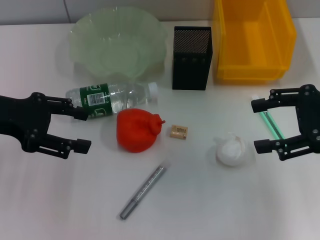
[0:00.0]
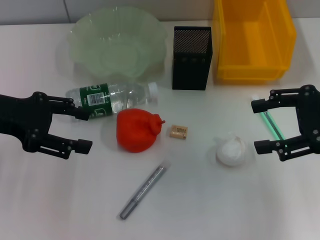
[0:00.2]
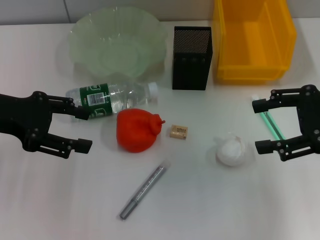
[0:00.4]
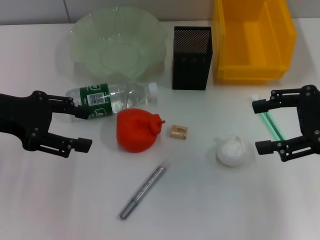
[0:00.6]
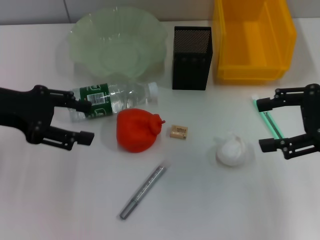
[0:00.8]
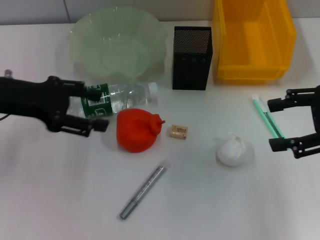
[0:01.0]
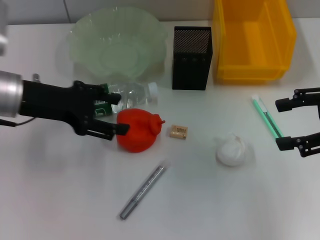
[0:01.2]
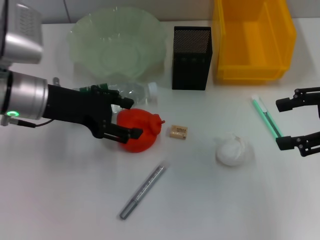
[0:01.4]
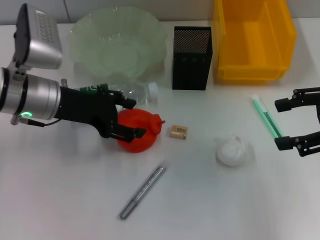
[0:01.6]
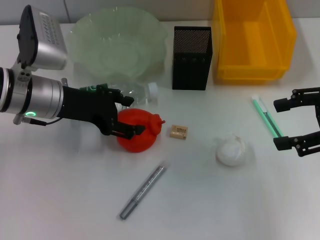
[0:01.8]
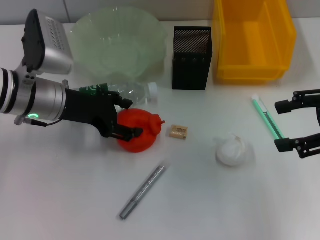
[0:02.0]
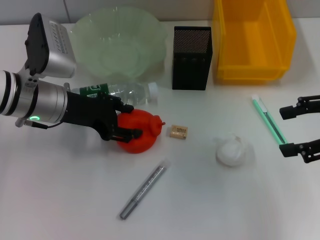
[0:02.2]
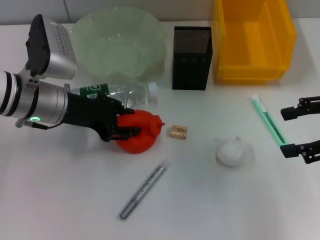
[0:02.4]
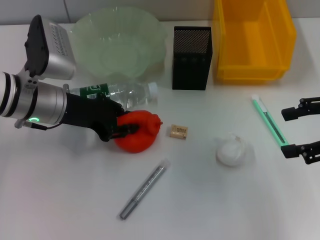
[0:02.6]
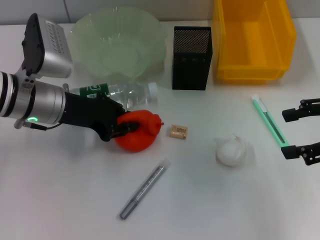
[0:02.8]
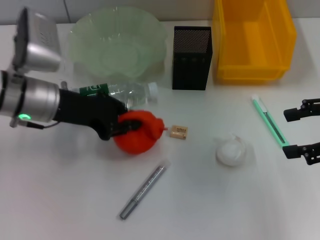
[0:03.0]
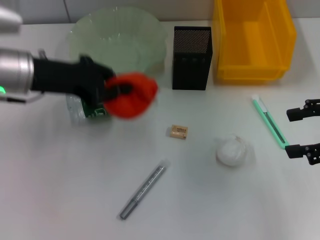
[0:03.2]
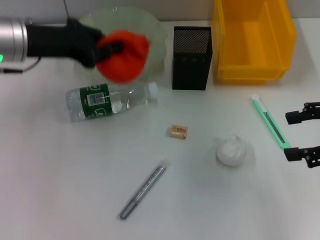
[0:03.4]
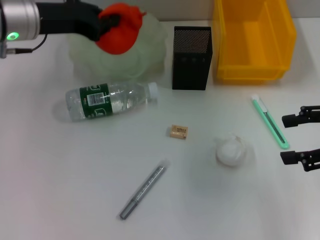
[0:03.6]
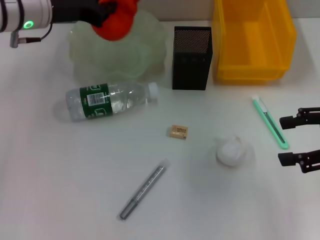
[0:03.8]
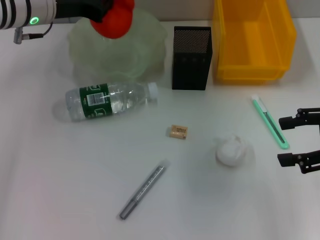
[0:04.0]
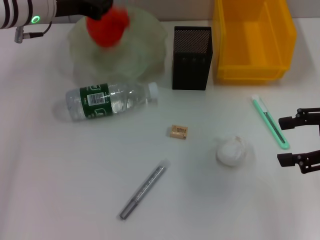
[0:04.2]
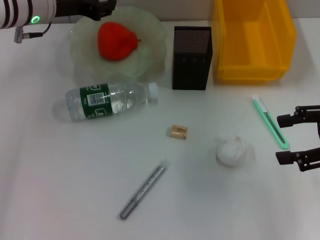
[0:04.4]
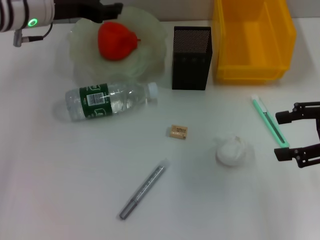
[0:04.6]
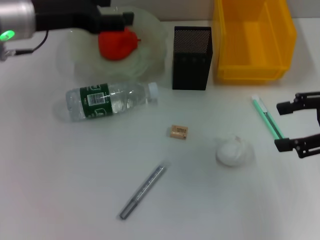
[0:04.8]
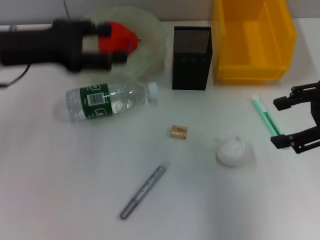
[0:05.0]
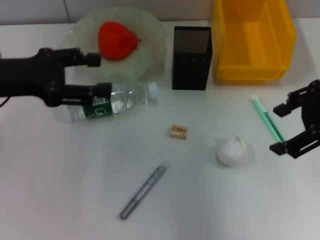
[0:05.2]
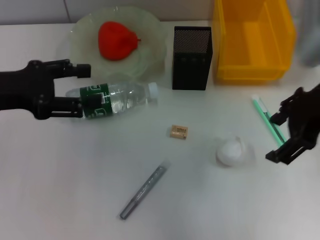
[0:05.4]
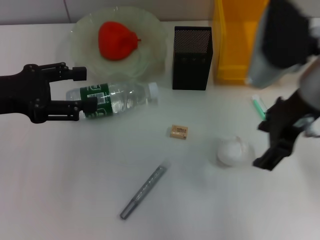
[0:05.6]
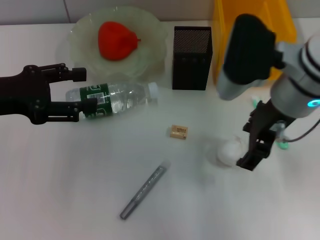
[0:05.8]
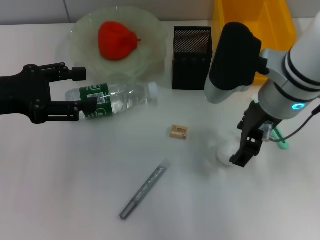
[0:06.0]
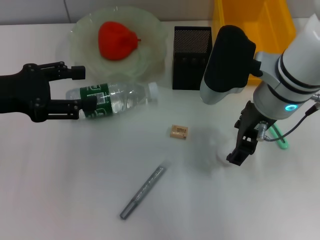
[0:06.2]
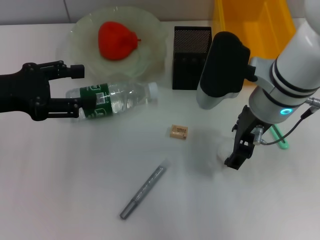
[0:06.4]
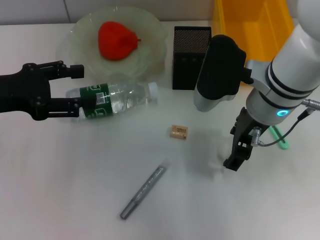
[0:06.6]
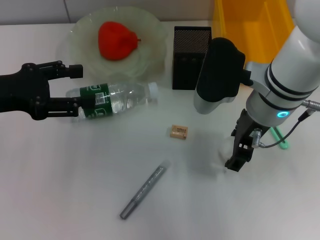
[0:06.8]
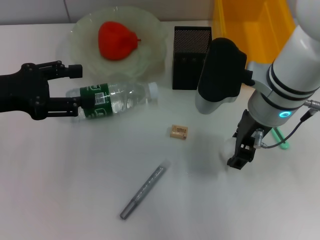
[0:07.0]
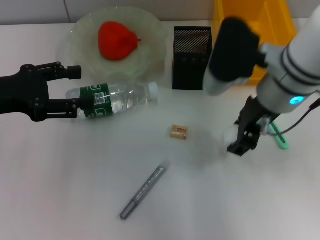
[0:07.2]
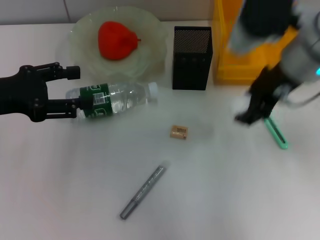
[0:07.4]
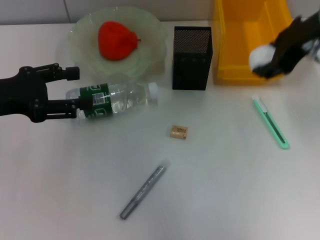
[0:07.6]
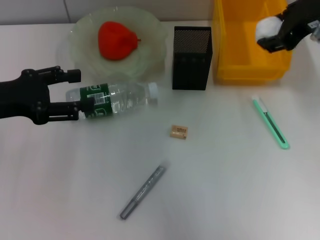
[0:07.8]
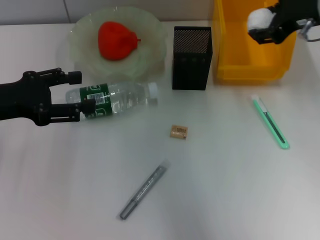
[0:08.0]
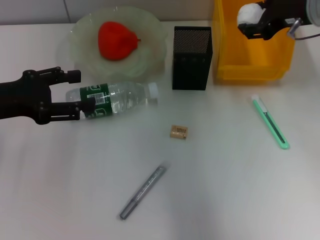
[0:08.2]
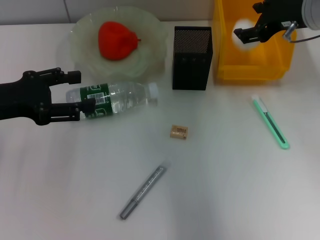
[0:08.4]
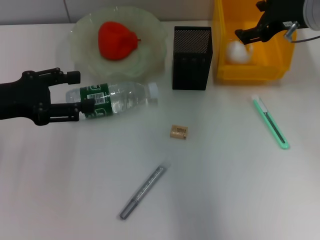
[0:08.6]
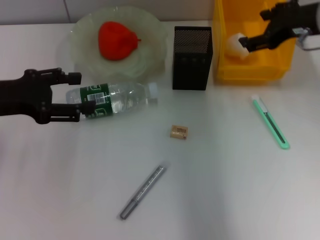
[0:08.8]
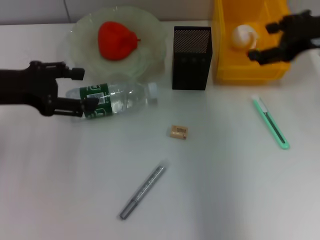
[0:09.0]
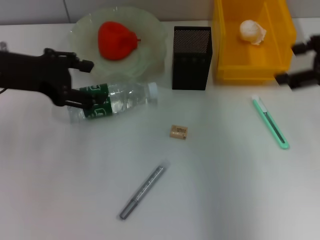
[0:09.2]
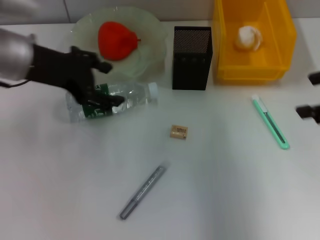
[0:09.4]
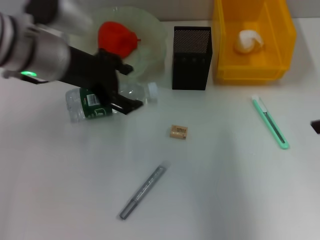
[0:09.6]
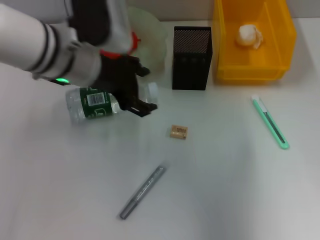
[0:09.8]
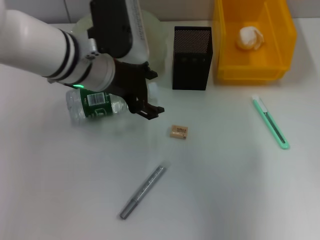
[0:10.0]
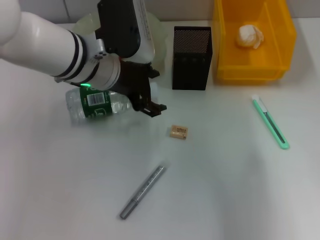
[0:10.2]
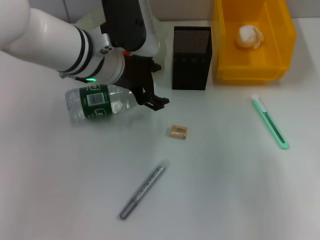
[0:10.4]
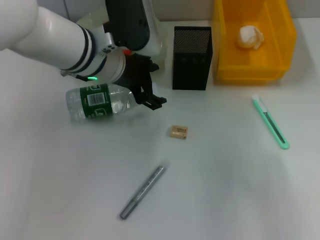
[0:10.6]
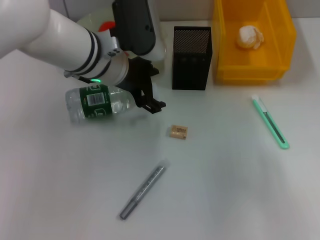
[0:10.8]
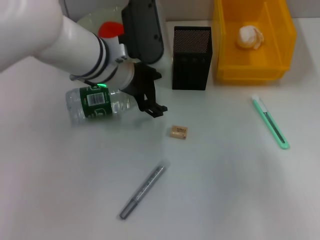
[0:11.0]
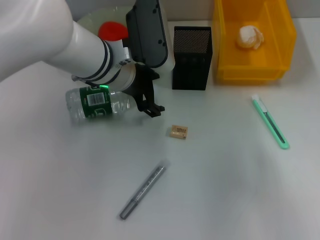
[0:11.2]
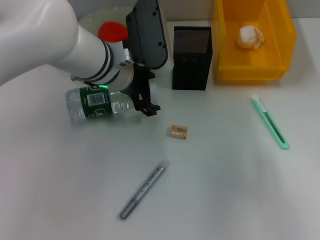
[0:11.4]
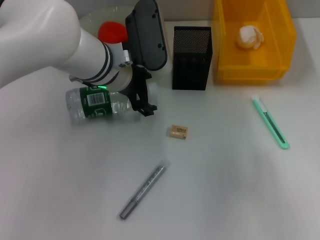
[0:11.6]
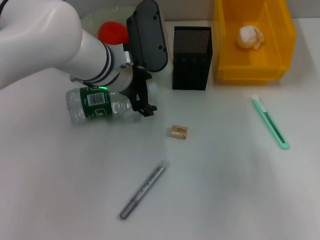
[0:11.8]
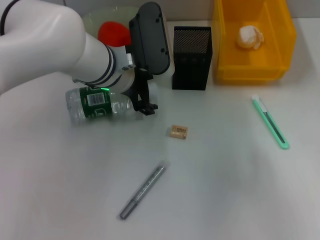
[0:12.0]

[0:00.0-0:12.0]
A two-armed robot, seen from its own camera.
Step, 0:00.0 to 0:02.6: Grab the orange with the left hand.
Step, 0:02.8 to 0:04.4: Place the orange into the fruit bowl with the left hand.
Step, 0:04.6 to 0:07.0: Grab the paper ball with the right hand.
Step, 0:07.2 to 0:08.6: Place the paper ball into the trash can with the right hand.
0:00.0 to 0:01.6: The left gripper heads to the right, covering approximately 10 cm.
0:01.6 to 0:03.0: The left gripper closes up.
0:03.0 to 0:04.4: The left gripper is displaced forward and upward by some 10 cm.
0:04.4 to 0:06.0: The left gripper heads backward and to the left, covering roughly 15 cm, and opens; the right gripper is displaced to the left by about 20 cm.
0:06.0 to 0:07.6: The right gripper shifts roughly 10 cm upward and to the right, and closes.
0:07.6 to 0:09.0: The right gripper goes about 10 cm to the right and downward, and opens.
0:09.0 to 0:10.4: The left gripper heads to the right, covering some 20 cm. The right gripper moves backward and to the right, approximately 15 cm.
0:10.4 to 0:12.0: The grippers make only small movements.

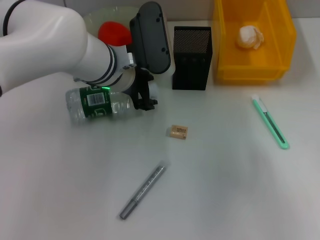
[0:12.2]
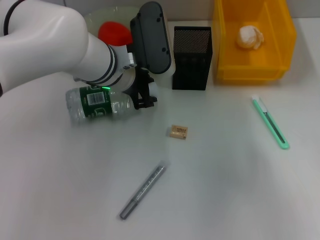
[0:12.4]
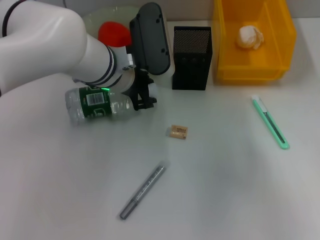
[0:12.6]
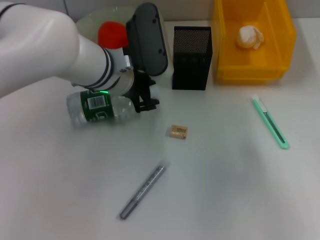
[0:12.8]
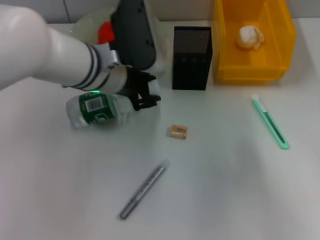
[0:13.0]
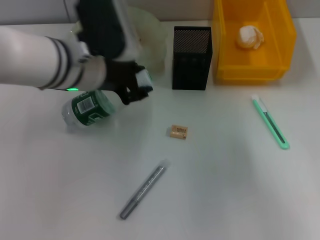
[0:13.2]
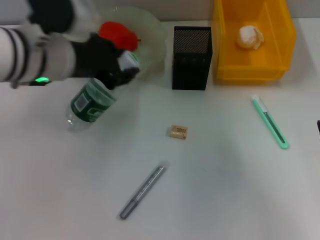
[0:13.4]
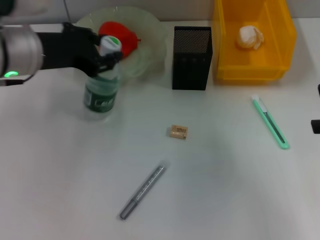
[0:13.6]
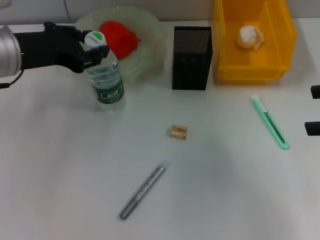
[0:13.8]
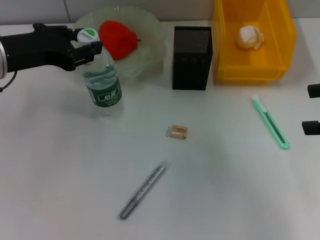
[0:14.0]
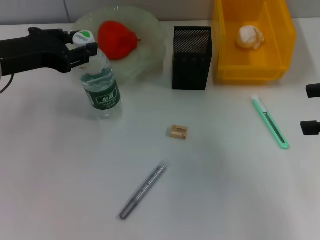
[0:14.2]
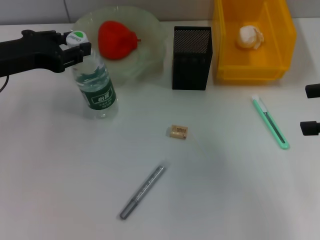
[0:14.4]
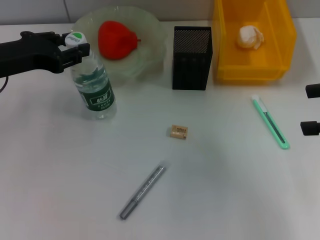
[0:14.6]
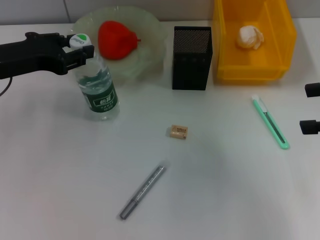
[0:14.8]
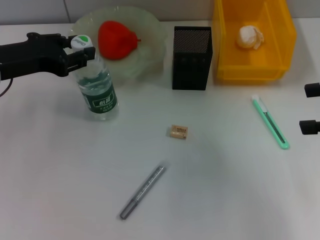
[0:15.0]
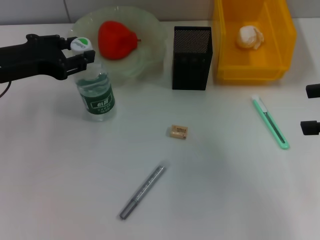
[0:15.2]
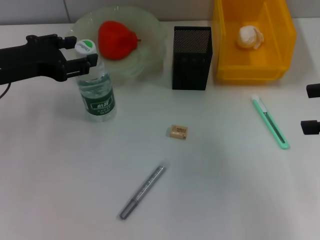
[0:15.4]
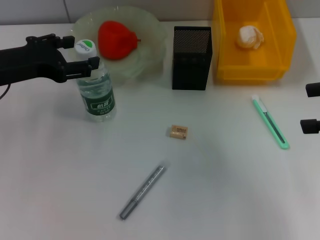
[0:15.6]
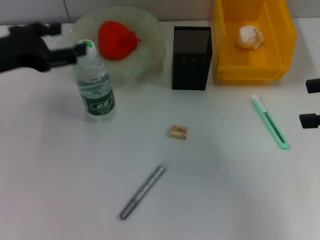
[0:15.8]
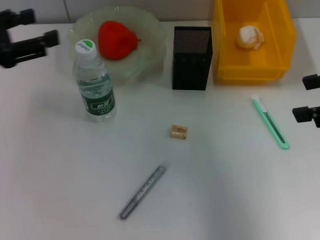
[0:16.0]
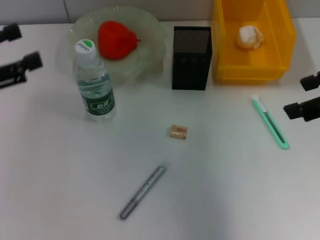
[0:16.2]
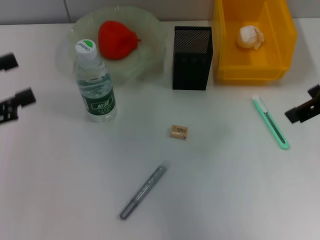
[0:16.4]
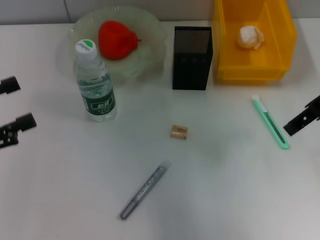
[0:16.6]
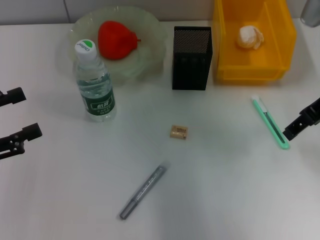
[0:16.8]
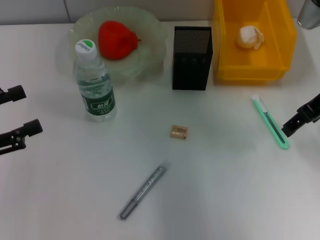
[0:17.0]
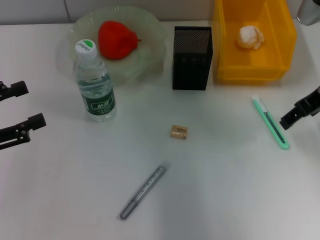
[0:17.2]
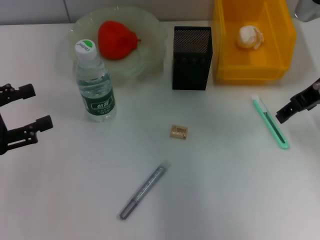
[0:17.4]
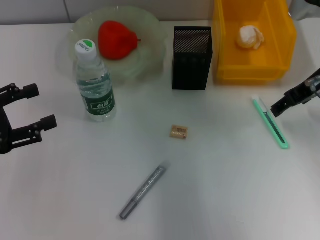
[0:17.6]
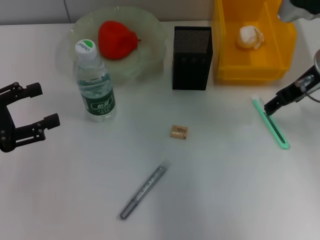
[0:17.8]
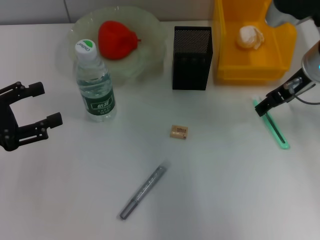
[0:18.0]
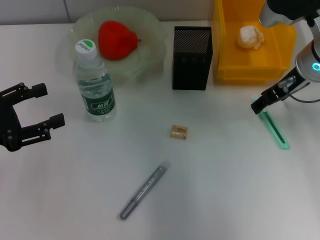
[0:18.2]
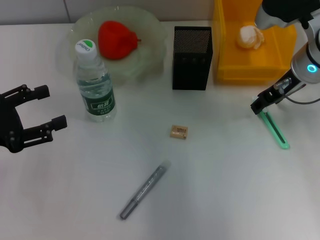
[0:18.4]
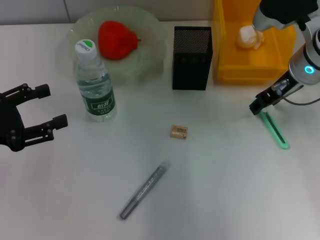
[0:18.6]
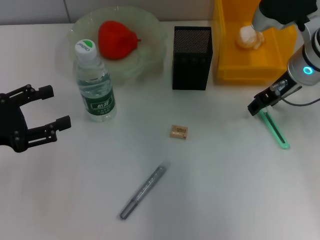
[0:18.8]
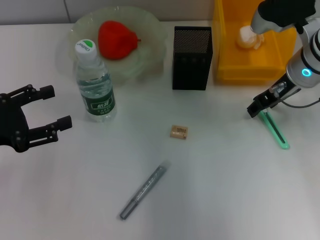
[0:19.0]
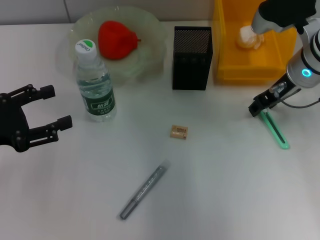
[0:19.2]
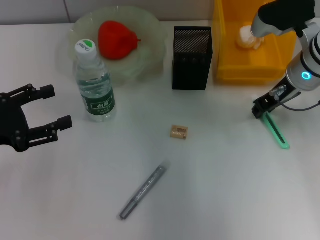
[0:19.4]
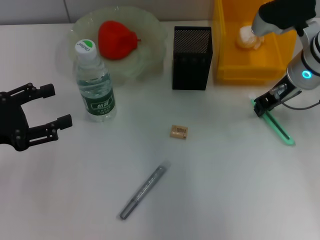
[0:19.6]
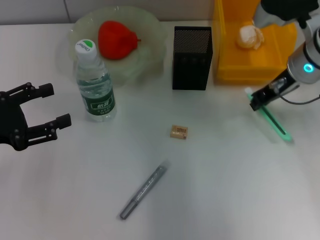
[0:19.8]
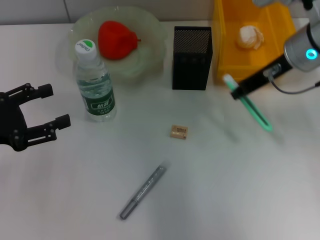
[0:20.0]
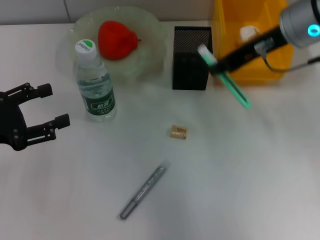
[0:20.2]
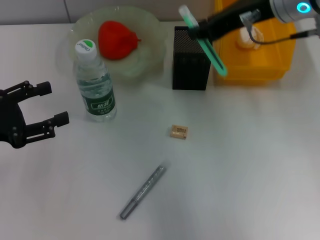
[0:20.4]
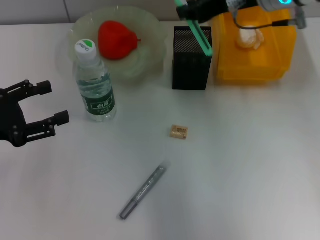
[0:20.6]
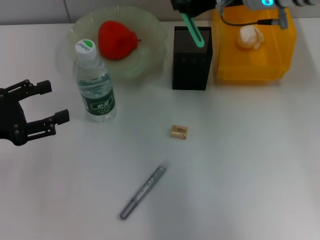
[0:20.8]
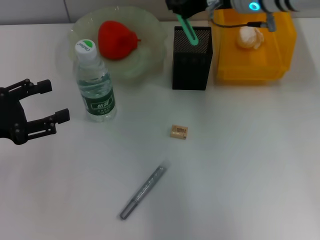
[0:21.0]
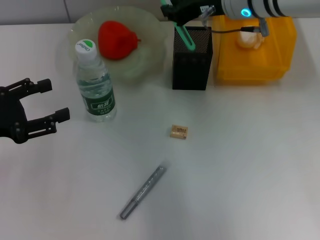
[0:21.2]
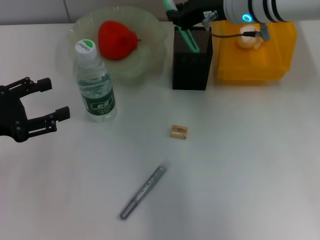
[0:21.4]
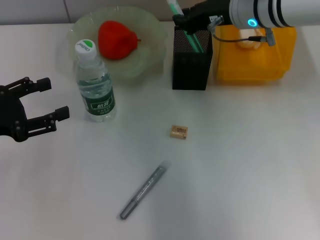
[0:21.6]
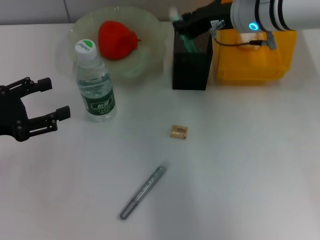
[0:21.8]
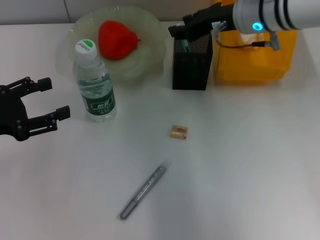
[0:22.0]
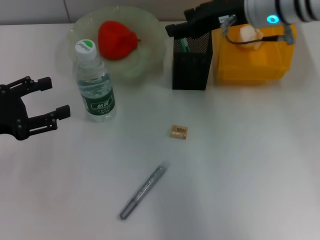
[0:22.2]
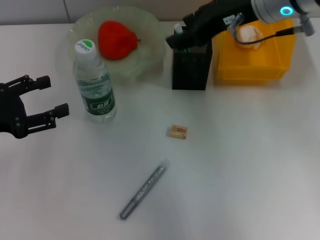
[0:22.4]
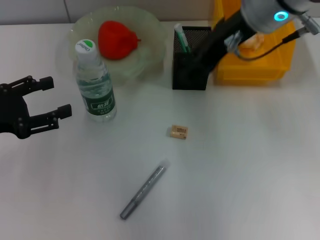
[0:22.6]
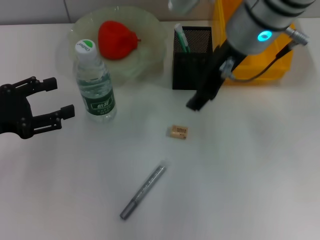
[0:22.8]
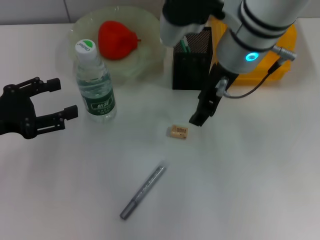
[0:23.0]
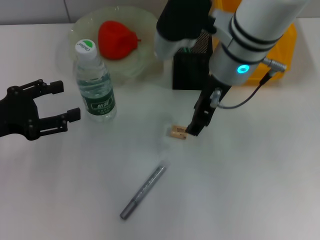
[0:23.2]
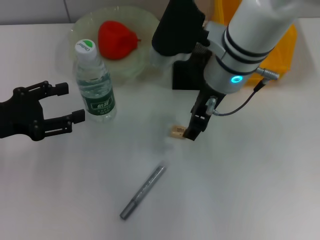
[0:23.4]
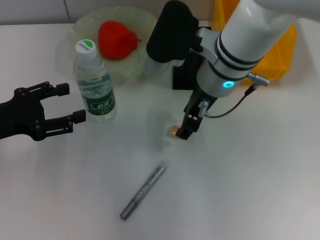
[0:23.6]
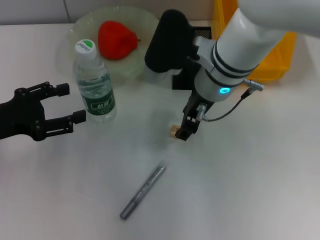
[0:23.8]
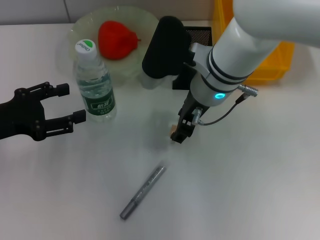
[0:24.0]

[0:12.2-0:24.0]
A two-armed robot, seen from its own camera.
Step, 0:12.8 to 0:15.4: Place the water bottle on the table with the left hand.
Step, 0:15.6 to 0:19.4: Grab the blue utility knife with the right hand.
Step, 0:19.6 to 0:21.8: Place the blue utility knife into the pen holder with the right hand.
0:12.2 to 0:13.6: The left gripper goes about 15 cm to the left, upward and backward, and closes up.
0:13.6 to 0:15.2: The left gripper heads to the left, covering some 5 cm.
0:15.2 to 0:16.6: The right gripper heads to the left and forward, covering about 10 cm. The left gripper moves backward and to the left, some 15 cm, and opens its fingers.
0:16.6 to 0:18.2: The right gripper goes some 10 cm downward and forward.
0:18.2 to 0:19.6: The right gripper closes.
0:19.6 to 0:21.0: The right gripper heads to the left and upward, covering about 10 cm.
0:21.0 to 0:22.6: The right gripper is displaced backward and upward by some 10 cm, and opens up.
0:22.6 to 0:24.0: The right gripper goes roughly 15 cm downward and to the left.
